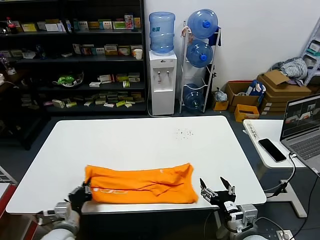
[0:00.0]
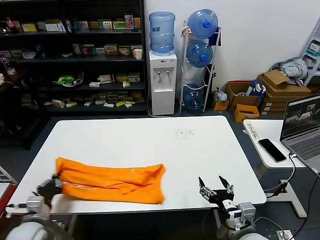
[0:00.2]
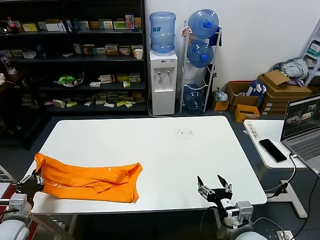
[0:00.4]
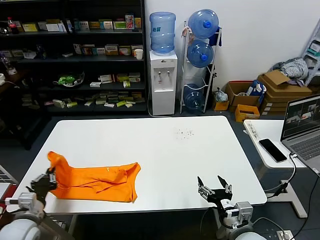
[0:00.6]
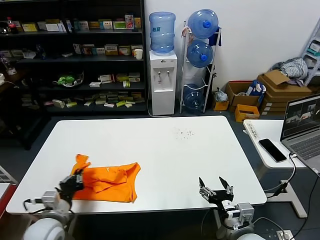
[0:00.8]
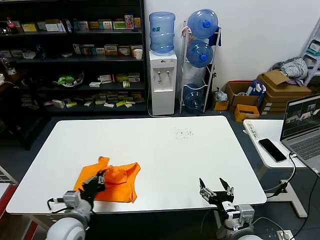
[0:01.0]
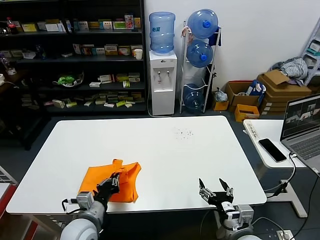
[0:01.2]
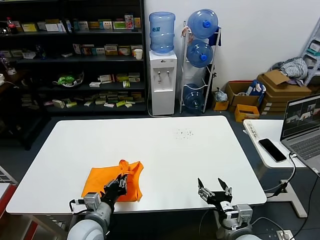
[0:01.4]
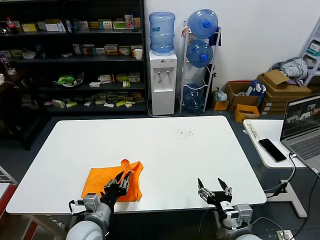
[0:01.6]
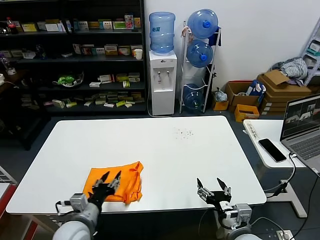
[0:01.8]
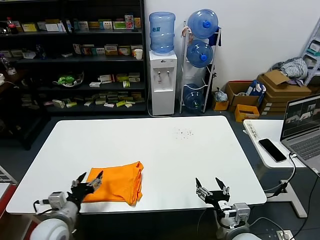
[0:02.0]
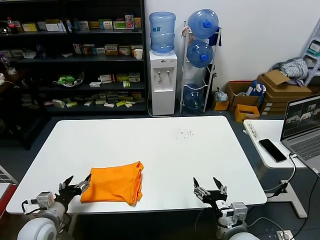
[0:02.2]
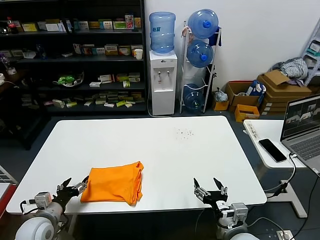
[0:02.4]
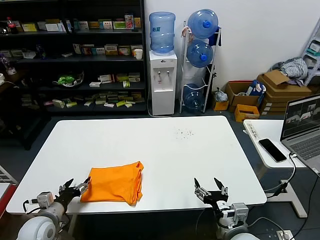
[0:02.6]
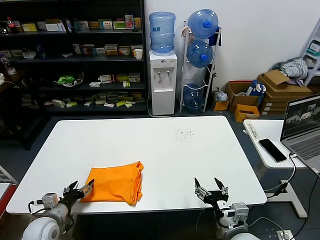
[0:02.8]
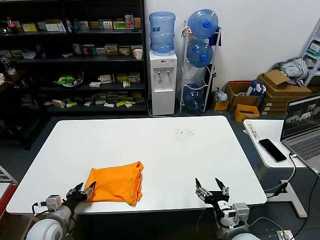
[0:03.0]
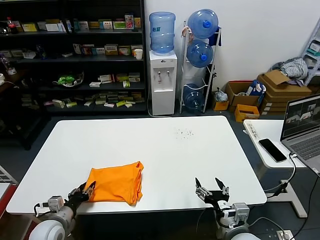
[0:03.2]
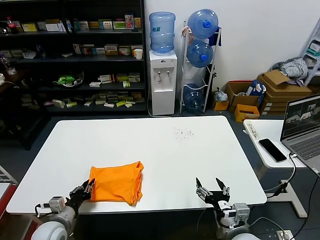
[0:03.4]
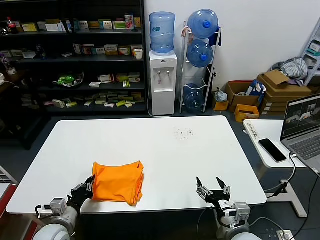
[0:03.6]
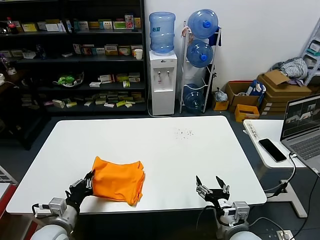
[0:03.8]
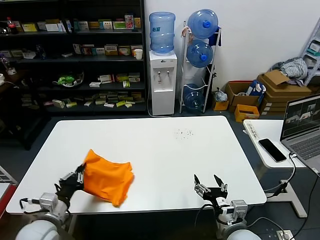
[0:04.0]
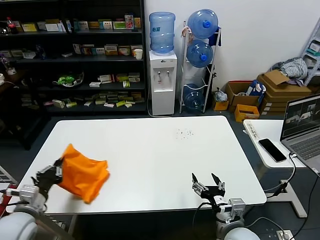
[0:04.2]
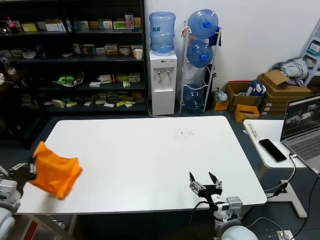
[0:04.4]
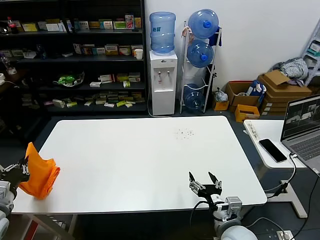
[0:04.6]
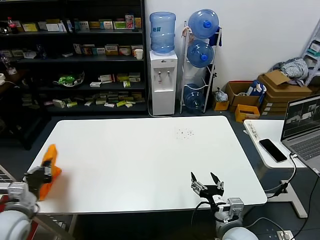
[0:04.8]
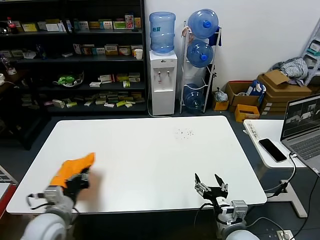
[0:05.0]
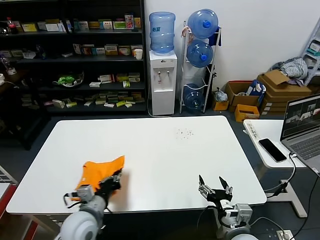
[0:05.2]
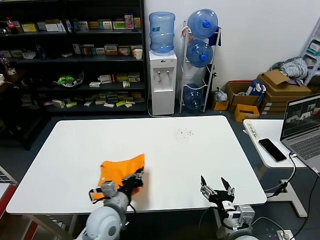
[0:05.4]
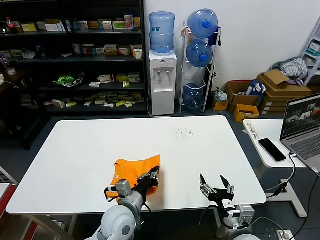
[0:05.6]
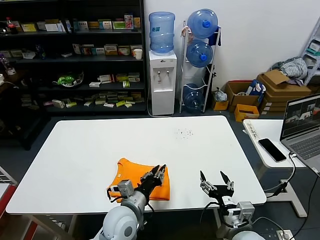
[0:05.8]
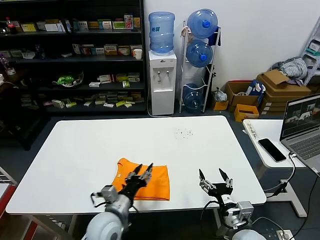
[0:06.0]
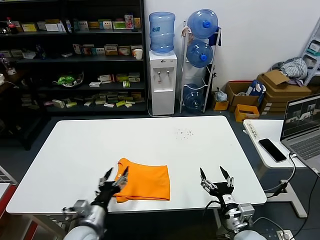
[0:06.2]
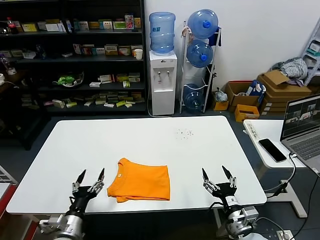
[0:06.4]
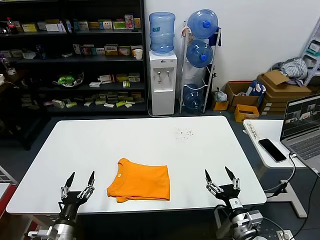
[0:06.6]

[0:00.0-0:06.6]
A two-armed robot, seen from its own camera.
Task of the whole recording: fold and organize the clothes.
Step, 0:00.0 to 0:01.6: use the left gripper to drag the left edge of the fabric to the left and folds it over the right edge.
Step, 0:01.8 to 0:05.6: Flip the folded clothes over with left gripper.
0:00.0 to 0:01.6: The left gripper moves some 15 cm to the left and comes back.
0:01.6 to 0:03.2: The left gripper shifts about 15 cm to the left and downward, and opens, then closes once more.
0:03.2 to 0:05.0: The left gripper swings left and right, some 15 cm each way, with 2 reversals, and closes its fingers.
0:05.0 to 0:06.6: The right gripper moves to the right, roughly 5 cm, while the left gripper goes about 10 cm downward, goes to the right and returns, about 25 cm each way, and opens its fingers.
